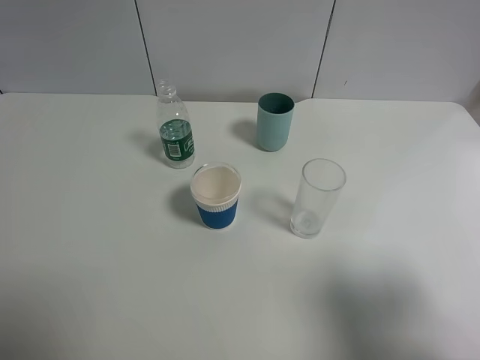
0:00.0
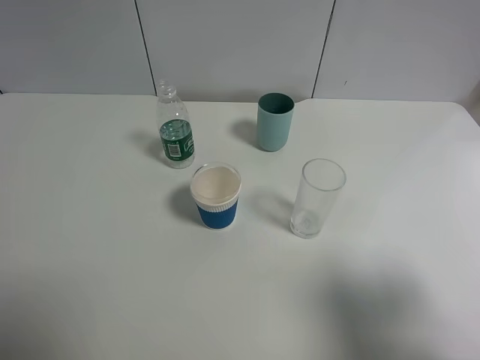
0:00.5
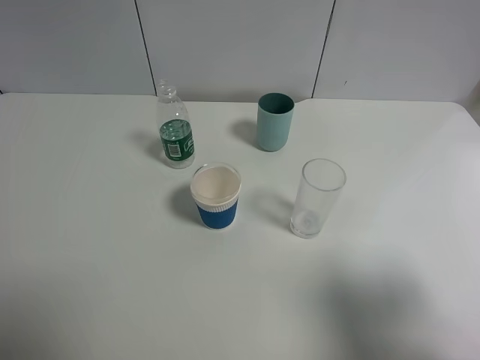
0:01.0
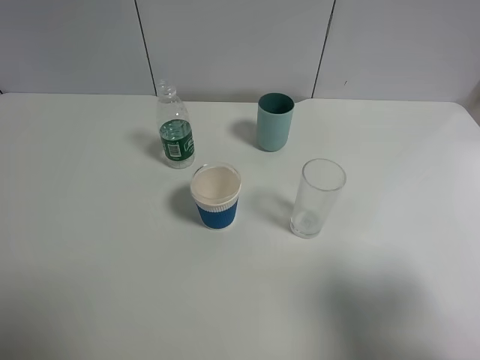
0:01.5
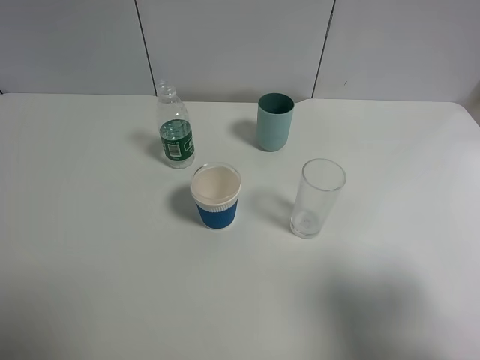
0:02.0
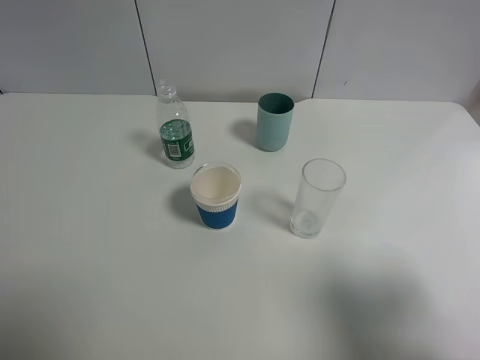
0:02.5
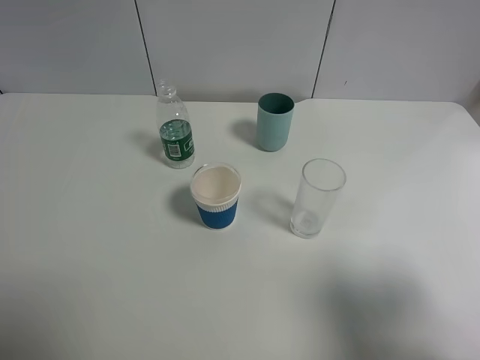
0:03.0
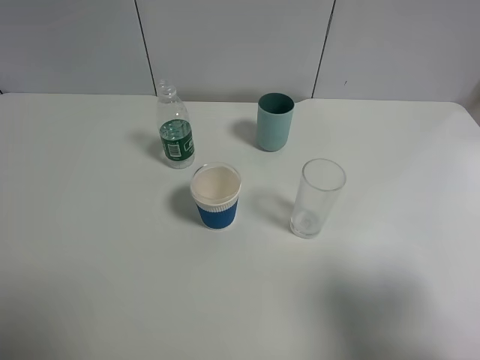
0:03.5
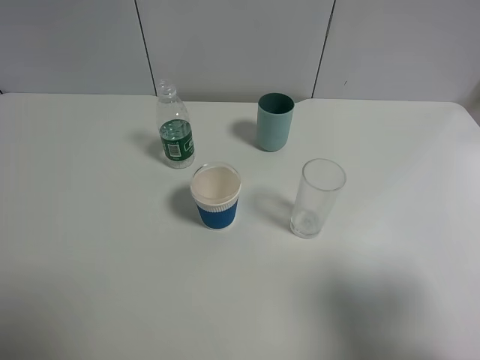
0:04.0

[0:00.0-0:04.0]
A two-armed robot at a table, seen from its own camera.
Task of the whole recording: use a gripper to hold the bottle of the drink and pour it into a random cup.
0:02.0 to 0:04.0: Neither gripper changes place.

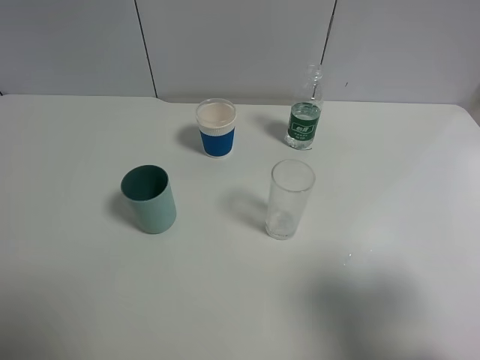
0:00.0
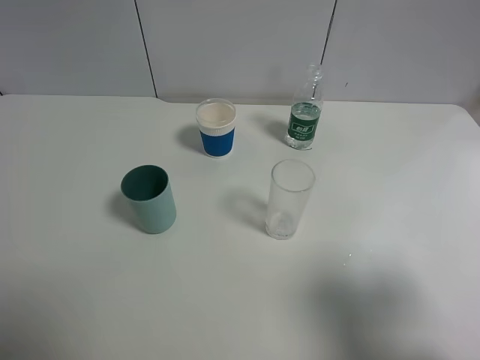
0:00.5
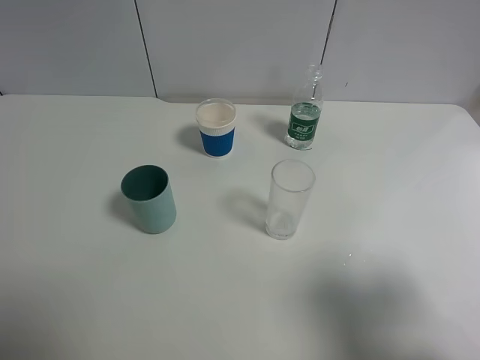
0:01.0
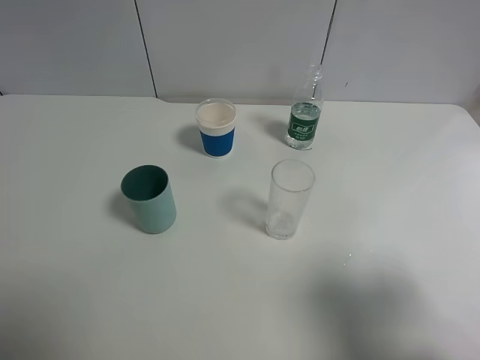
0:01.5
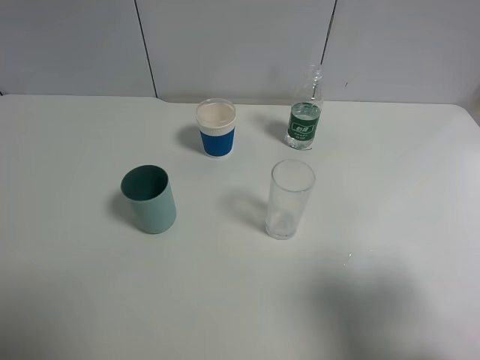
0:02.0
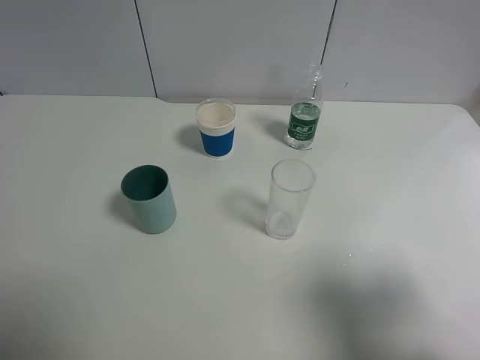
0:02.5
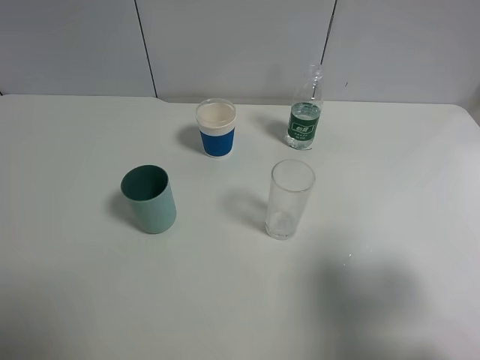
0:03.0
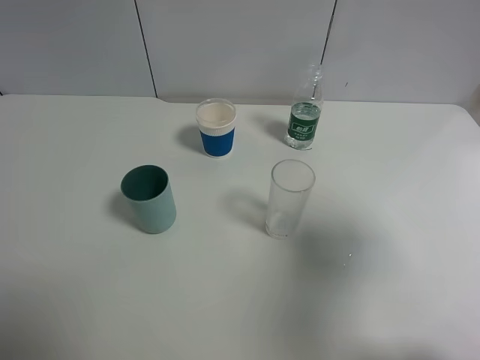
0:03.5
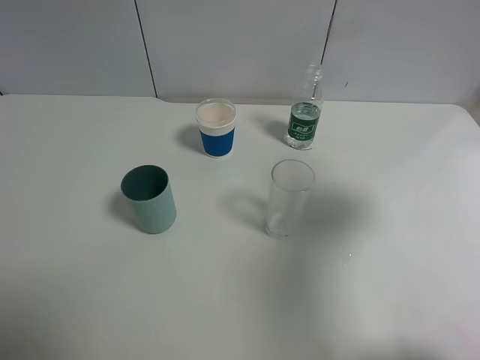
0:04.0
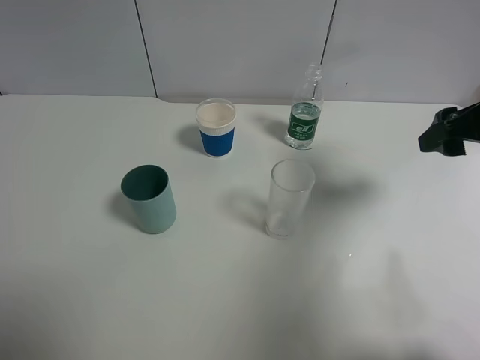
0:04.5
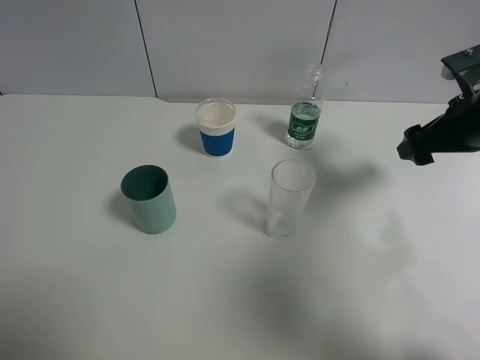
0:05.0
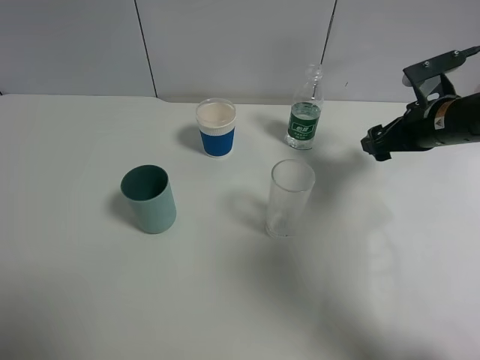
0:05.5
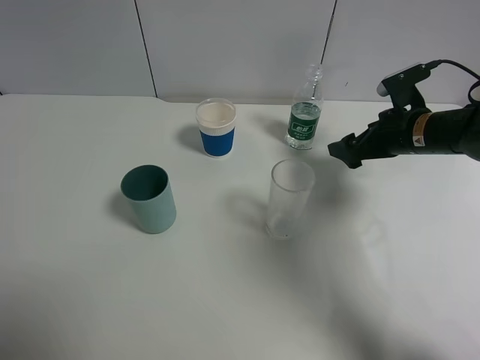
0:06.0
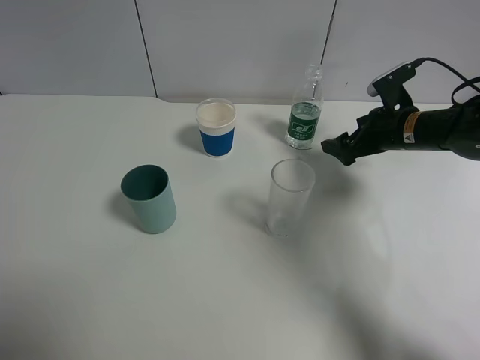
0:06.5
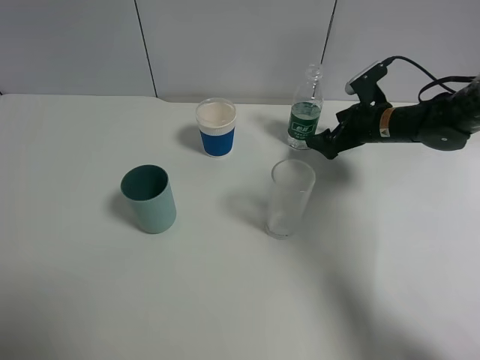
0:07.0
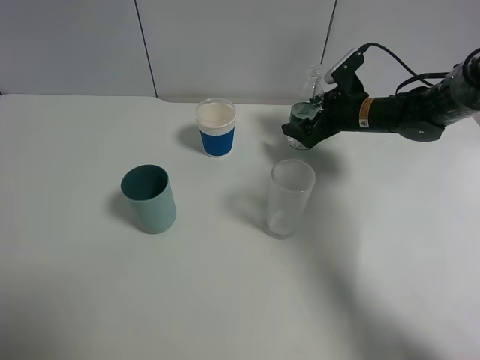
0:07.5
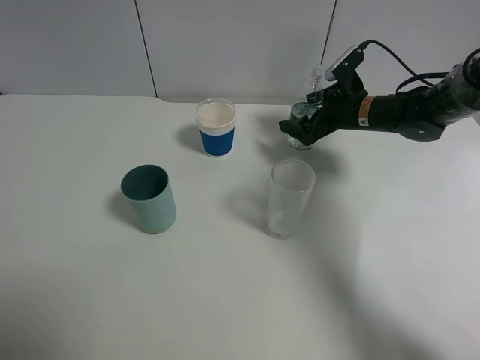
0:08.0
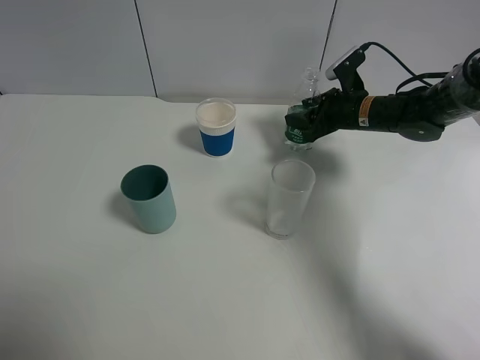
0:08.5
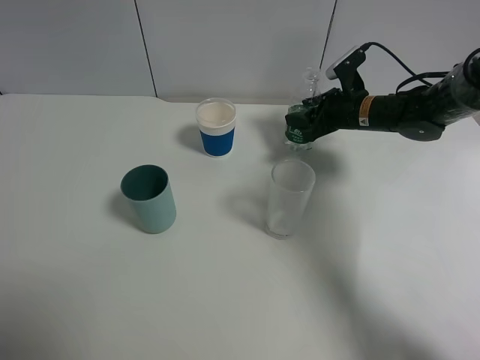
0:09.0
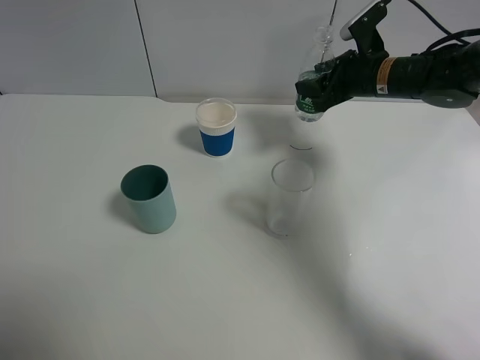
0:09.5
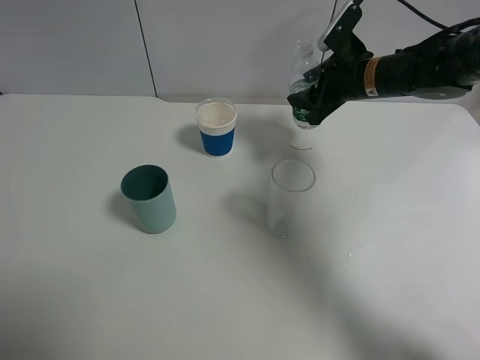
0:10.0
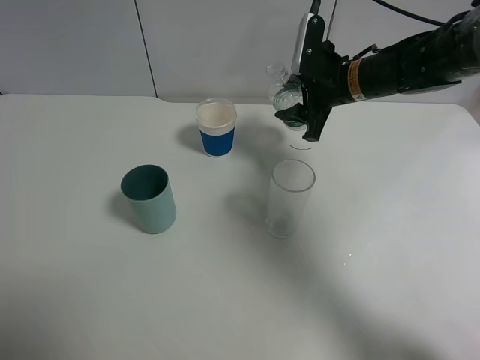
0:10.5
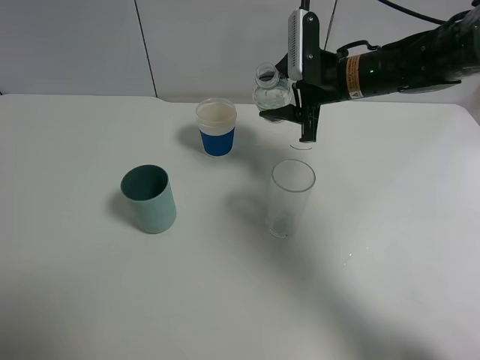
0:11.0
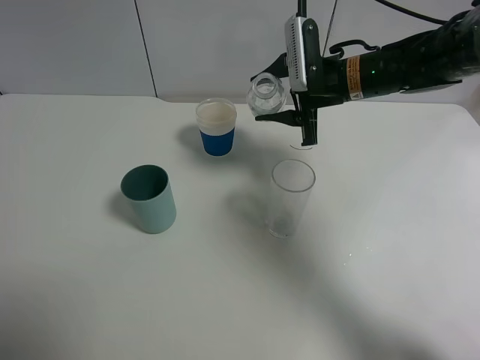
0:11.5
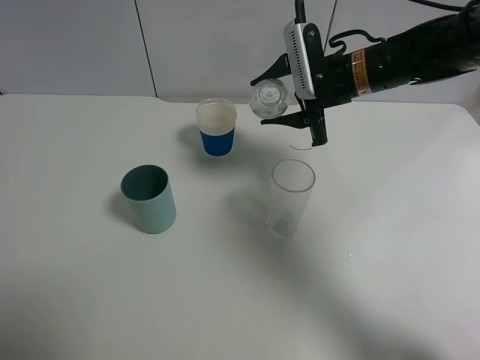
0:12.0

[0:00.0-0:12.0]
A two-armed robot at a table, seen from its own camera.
Task of the whole recording: use a gripper to hold the bottle of the drink and pour it into a random cup.
Step, 0:00.0 to 0:08.0: Grasp the mineral water bottle with the right gripper.
0:00.0 to 0:02.0: Neither gripper changes place.
0:02.0 to 0:04.0: The right gripper moves forward, roughly 15 cm.
0:04.0 to 0:06.0: The right gripper goes roughly 25 cm forward and downward.
0:06.0 to 0:08.0: The right gripper heads forward and to the left, covering some 10 cm.
0:08.0 to 0:10.0: The right gripper goes some 5 cm upward, and closes its fingers.
0:10.0 to 0:12.0: The right gripper moves about 5 cm.

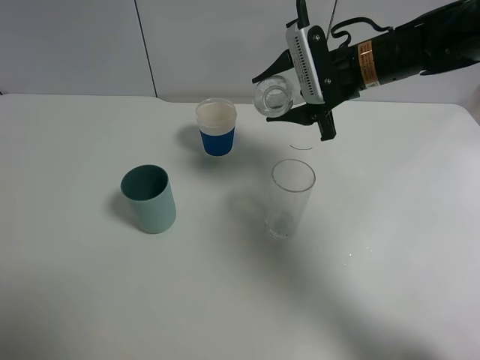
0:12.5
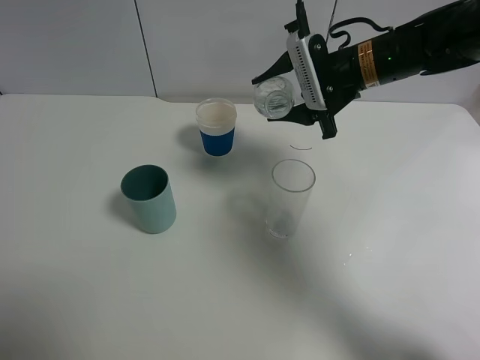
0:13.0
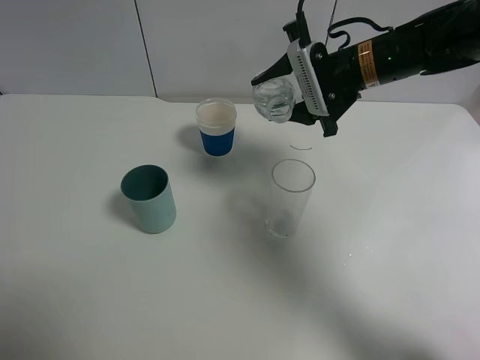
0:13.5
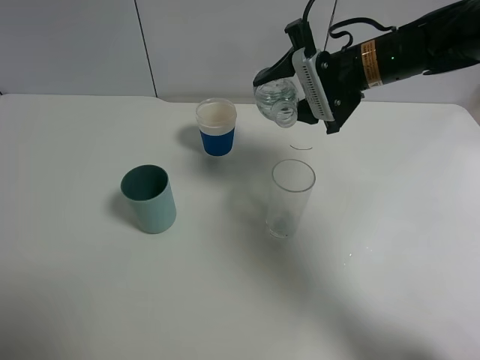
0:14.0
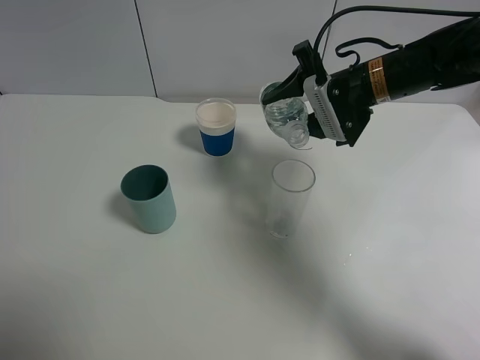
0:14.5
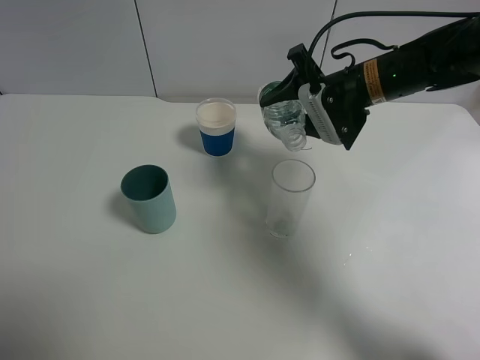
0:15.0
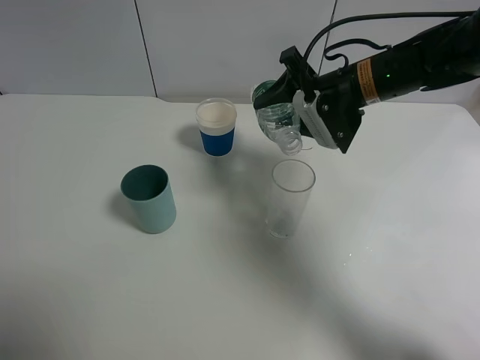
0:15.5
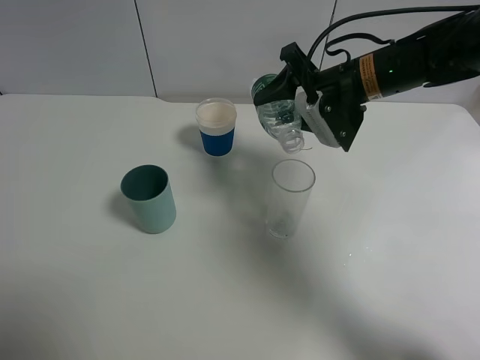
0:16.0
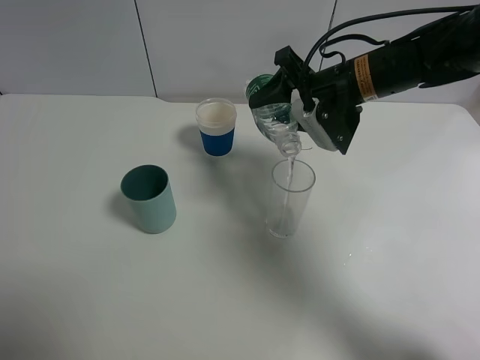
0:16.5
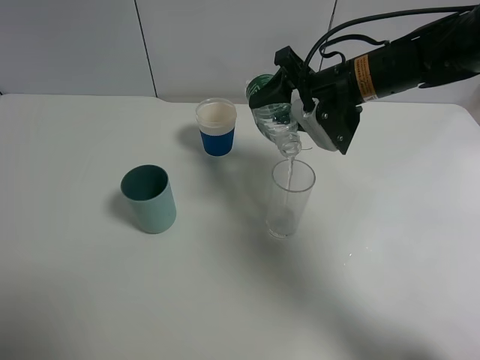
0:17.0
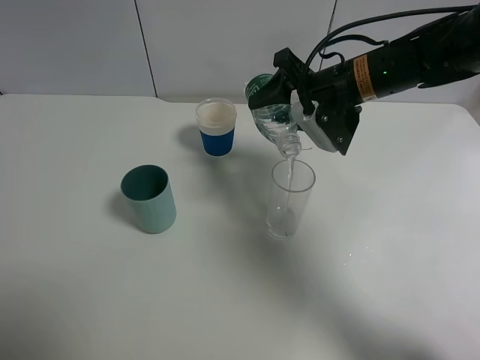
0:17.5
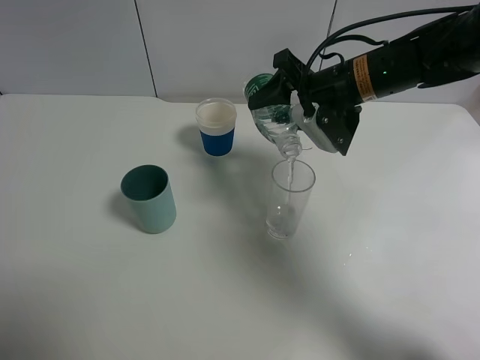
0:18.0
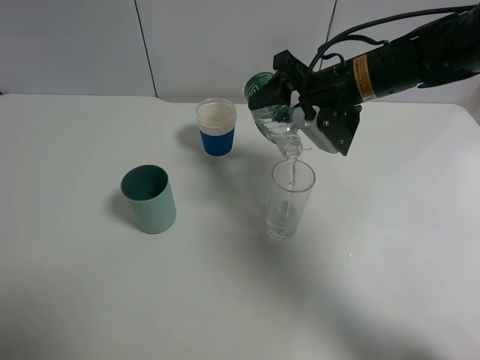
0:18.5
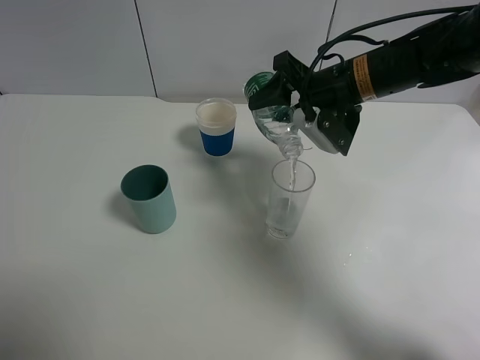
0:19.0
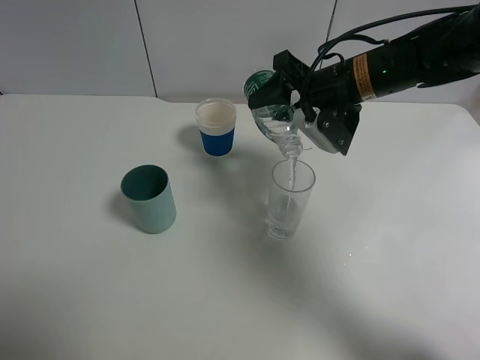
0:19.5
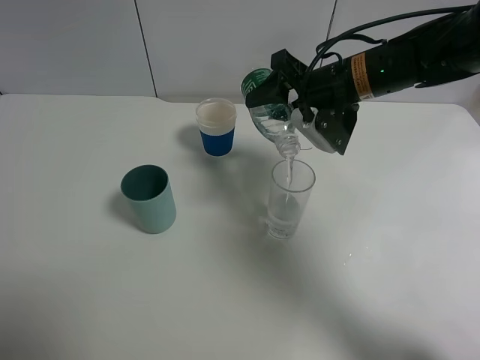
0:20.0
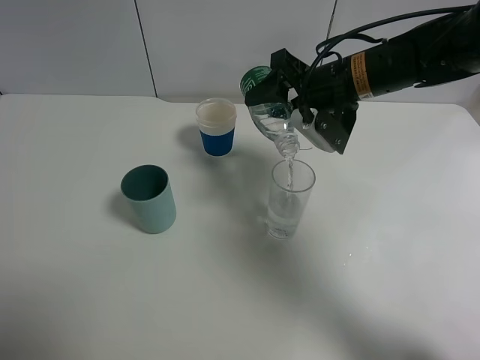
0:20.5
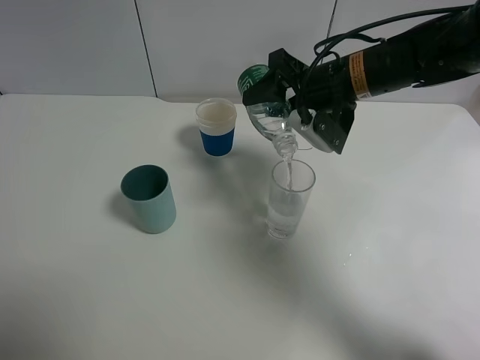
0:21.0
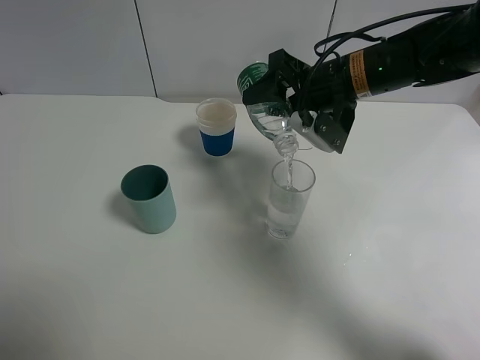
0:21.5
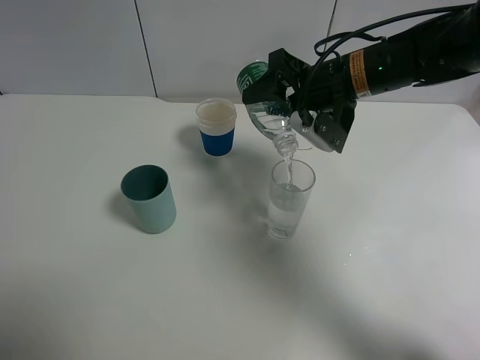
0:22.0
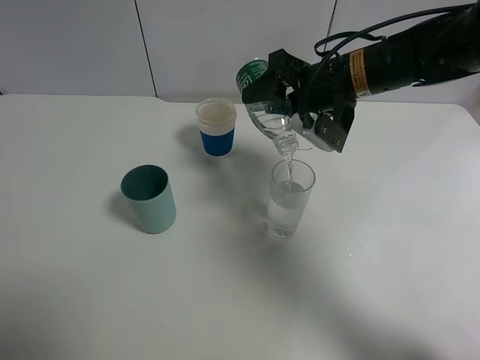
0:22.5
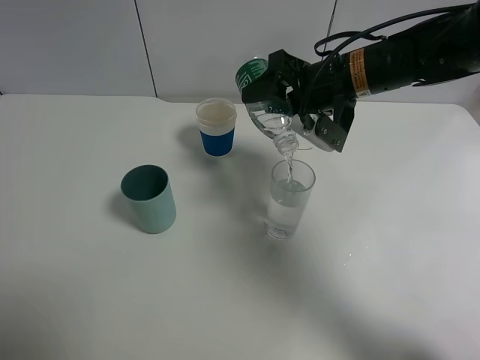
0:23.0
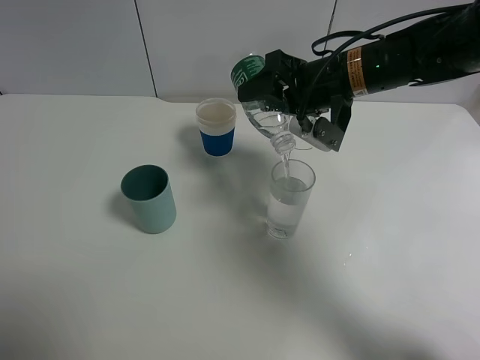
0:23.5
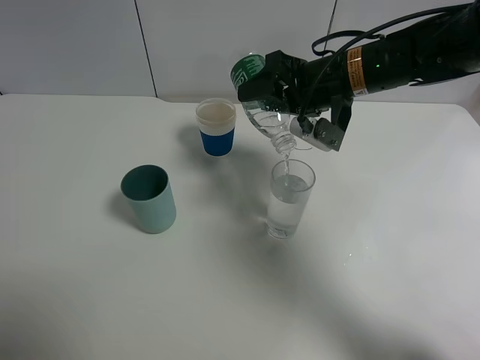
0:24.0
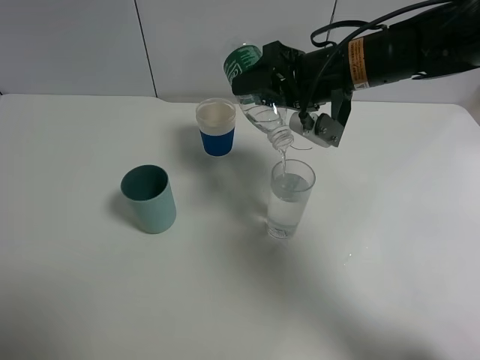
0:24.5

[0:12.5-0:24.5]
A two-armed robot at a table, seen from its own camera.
Task of the whole recording: use a gripper to hold the bottle of the drink and pour it into a random cup.
0:12.5 to 0:14.5: The grippers make only small movements.
0:14.5 to 0:16.5: The grippers make only small movements.
0:16.5 to 0:18.5: The grippers move only a little.
0:18.5 to 0:20.5: Both grippers stay about where they are.
0:20.5 to 0:24.5: The grippers make only small movements.
